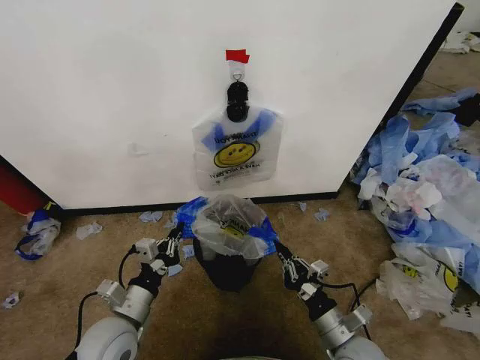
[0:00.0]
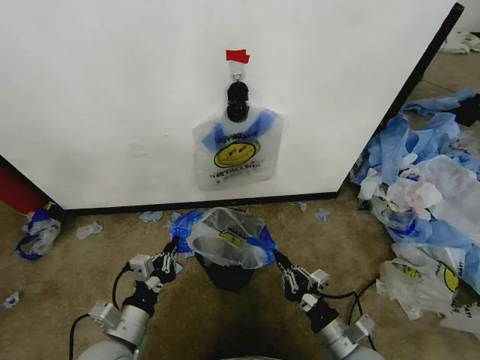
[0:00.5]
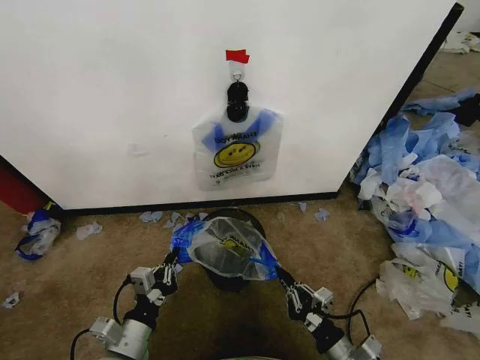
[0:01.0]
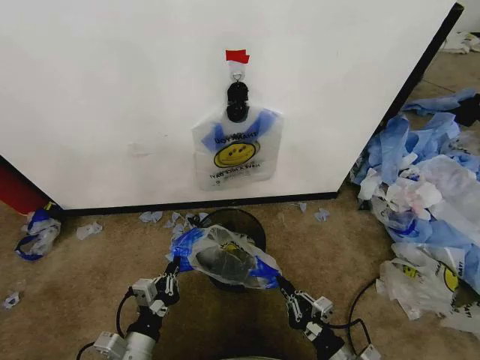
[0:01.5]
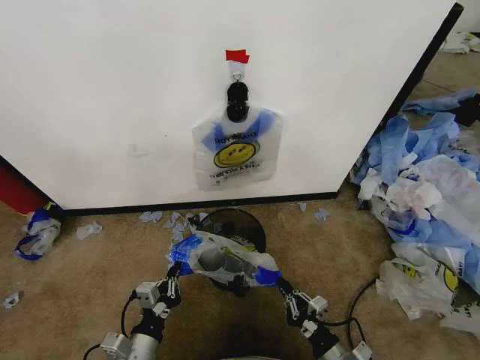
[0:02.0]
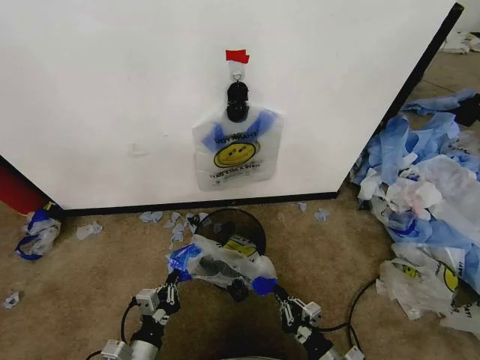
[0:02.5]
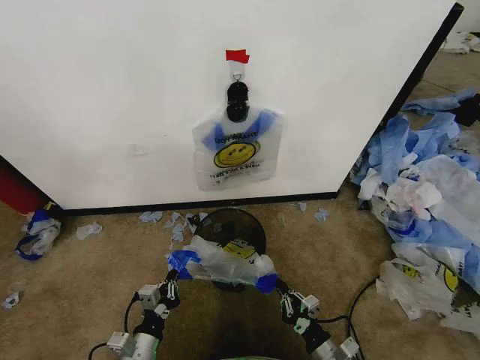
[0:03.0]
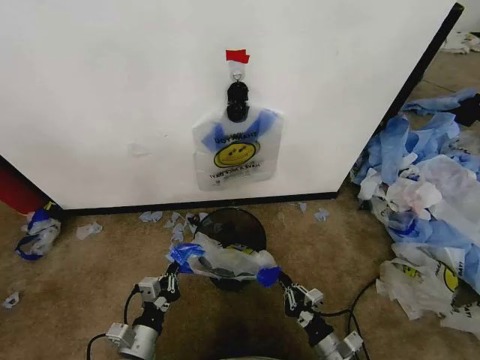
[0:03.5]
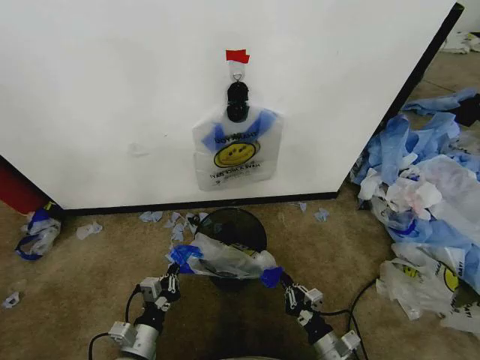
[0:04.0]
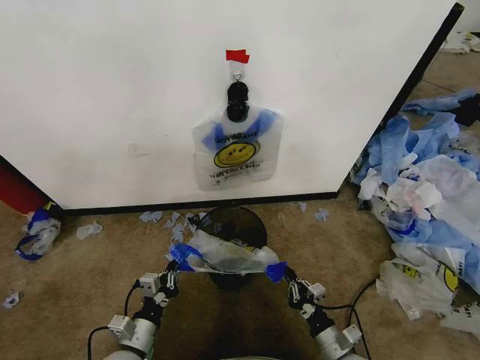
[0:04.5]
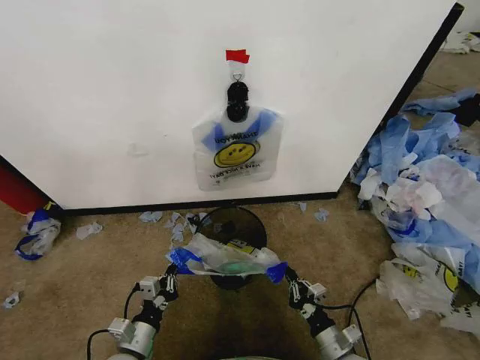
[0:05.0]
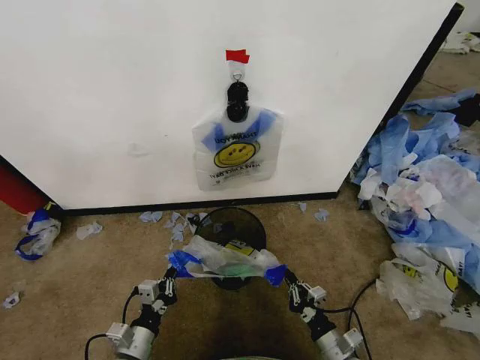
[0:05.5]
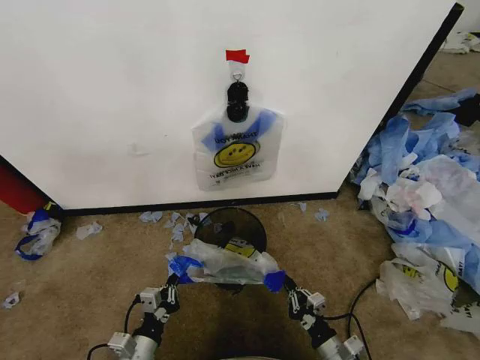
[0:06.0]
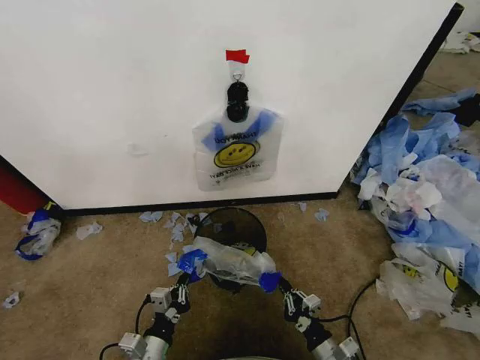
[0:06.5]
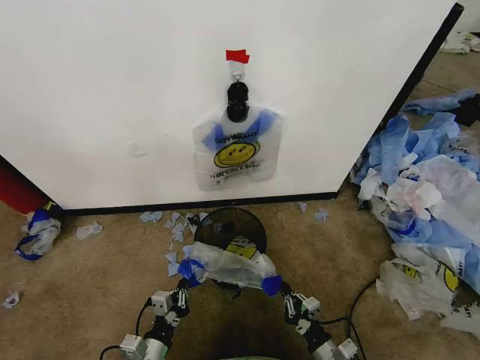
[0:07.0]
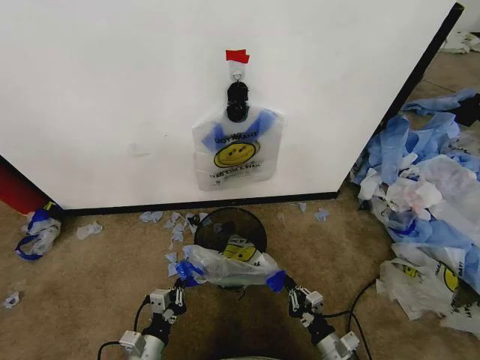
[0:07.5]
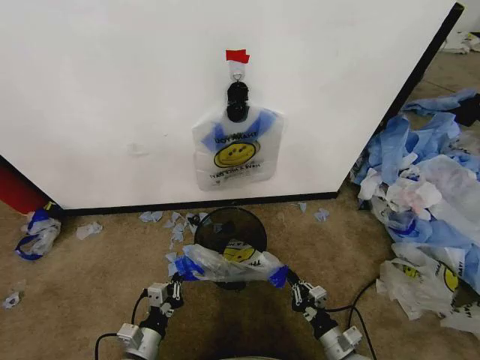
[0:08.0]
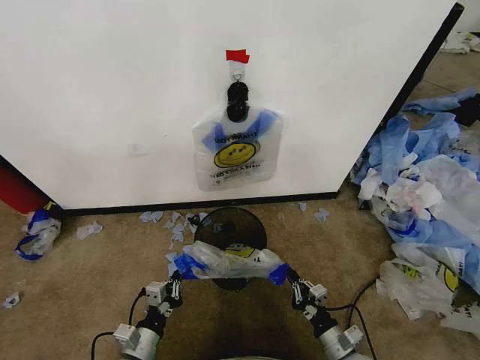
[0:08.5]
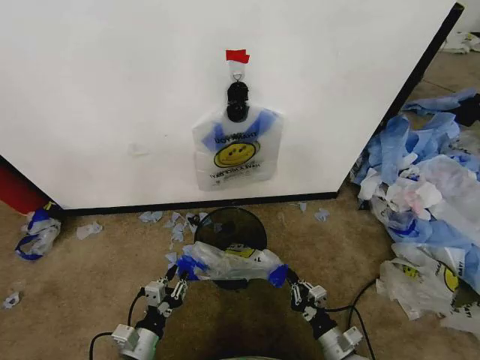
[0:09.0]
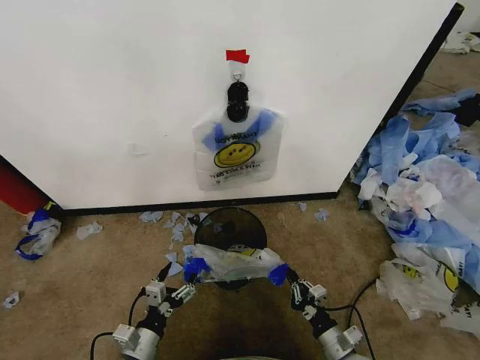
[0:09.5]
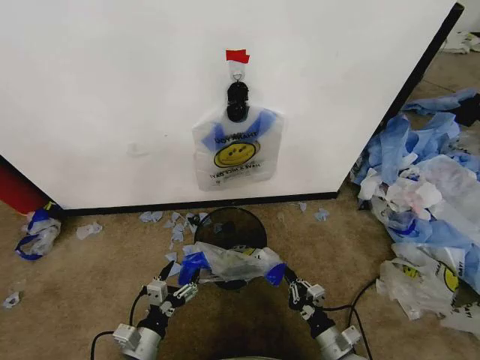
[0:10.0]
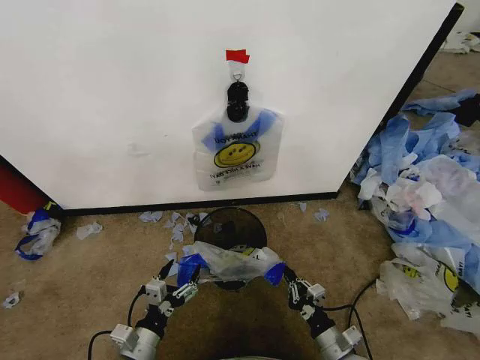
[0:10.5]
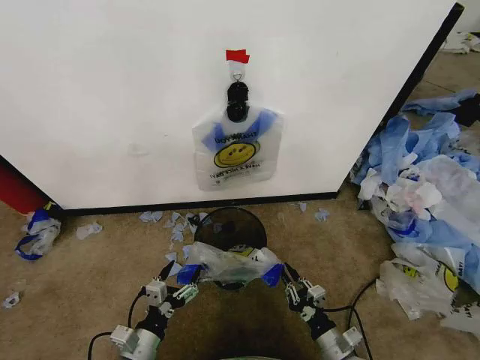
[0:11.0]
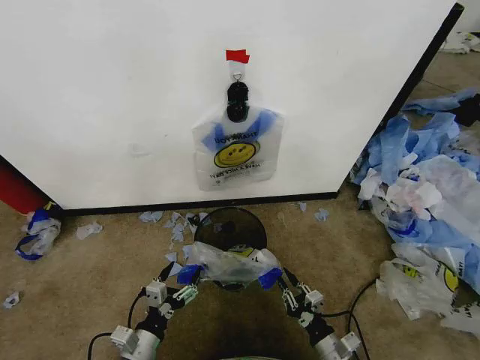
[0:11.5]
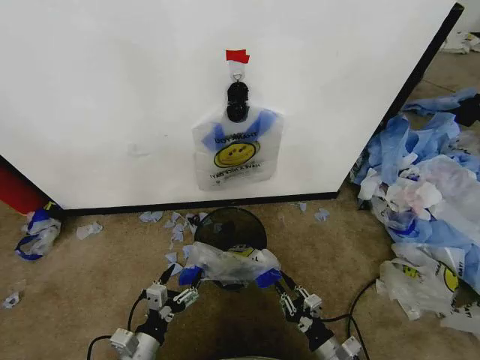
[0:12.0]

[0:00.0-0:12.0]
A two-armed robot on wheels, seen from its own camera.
Task of the whole recording: Pick up the garbage bag from the wall and place it over the trash bin.
0.0 to 2.0 s: The right gripper goes roughly 10 cm downward and backward. Meanwhile the left gripper shifts roughly 10 cm backward and downward.
2.0 to 6.0 s: The grippers move only a little.
6.0 to 8.0 s: The grippers move only a little.
8.0 to 10.0 s: The left gripper opens up.
10.0 to 12.0 s: The grippers stay close to where they were, moving slightly.

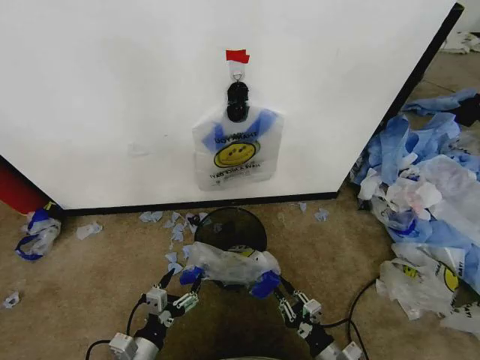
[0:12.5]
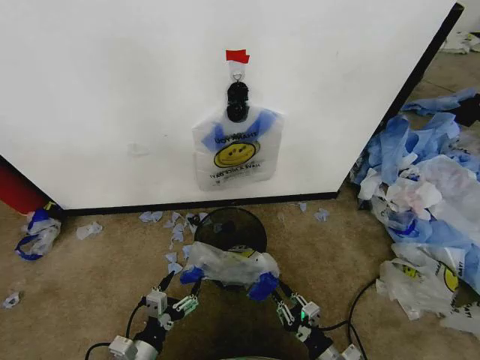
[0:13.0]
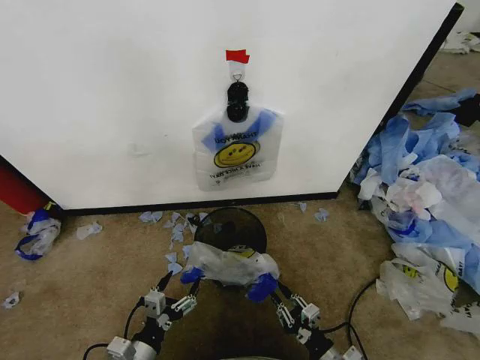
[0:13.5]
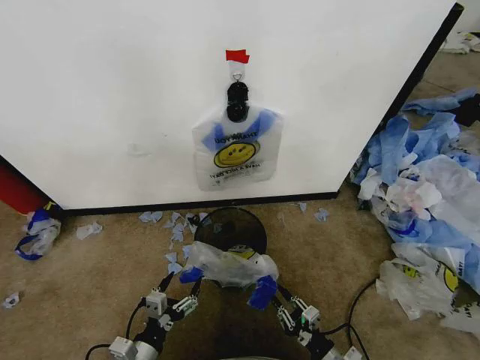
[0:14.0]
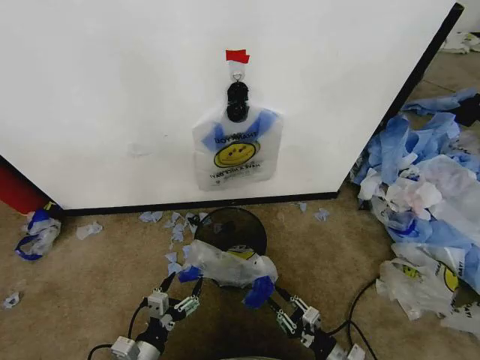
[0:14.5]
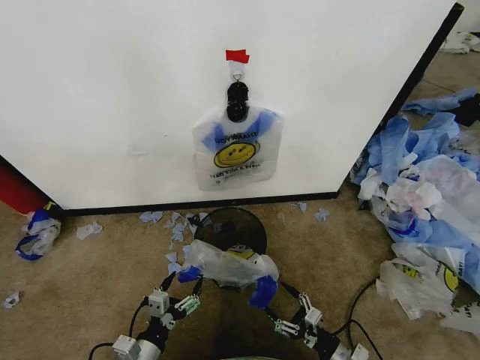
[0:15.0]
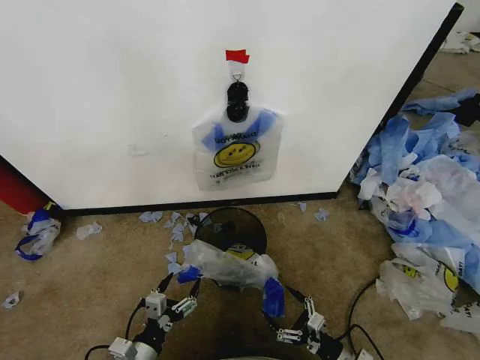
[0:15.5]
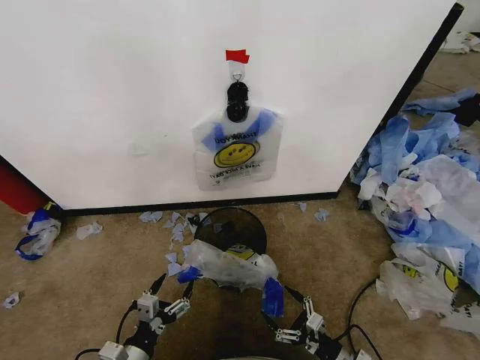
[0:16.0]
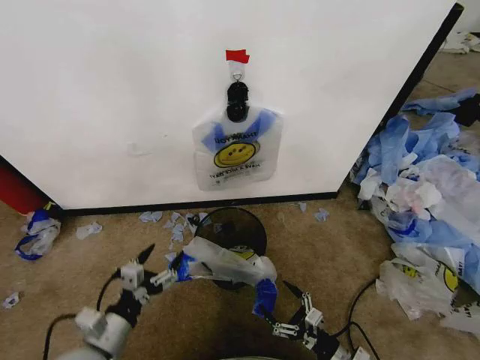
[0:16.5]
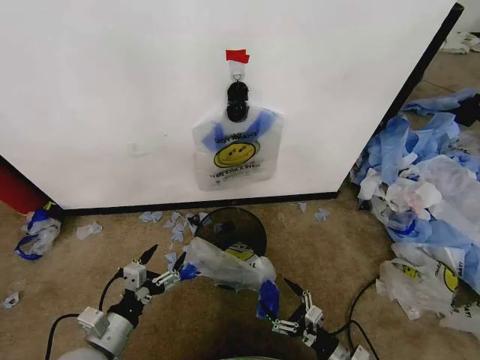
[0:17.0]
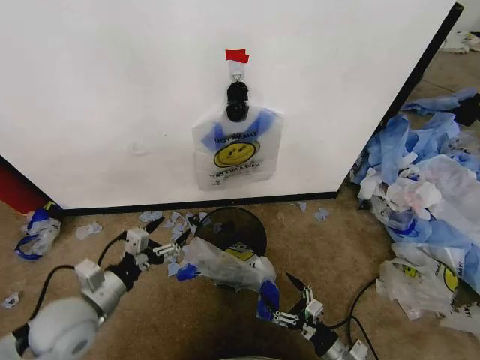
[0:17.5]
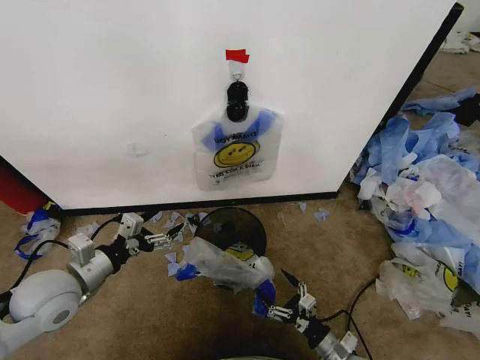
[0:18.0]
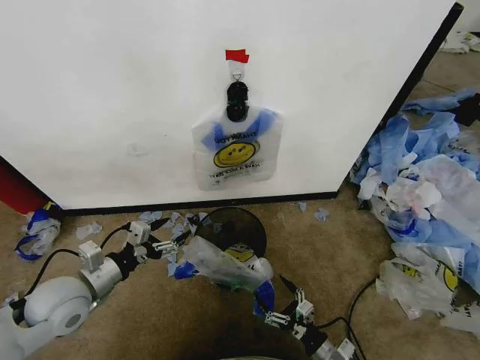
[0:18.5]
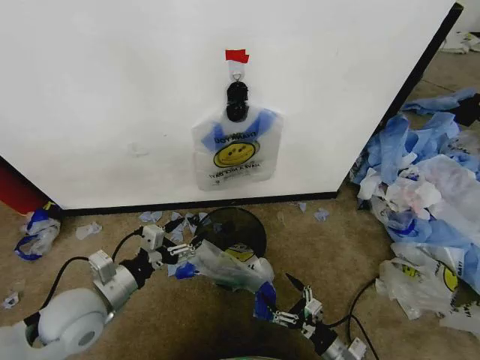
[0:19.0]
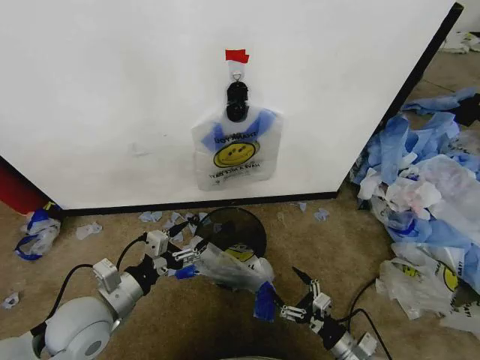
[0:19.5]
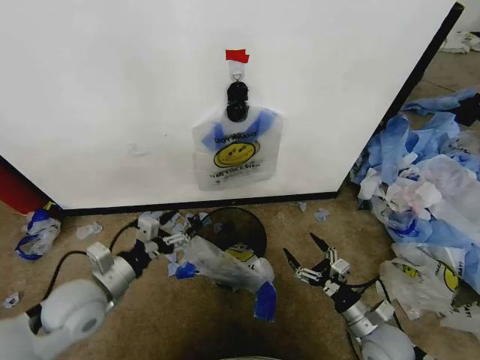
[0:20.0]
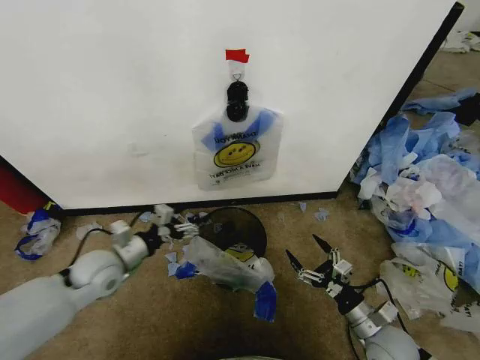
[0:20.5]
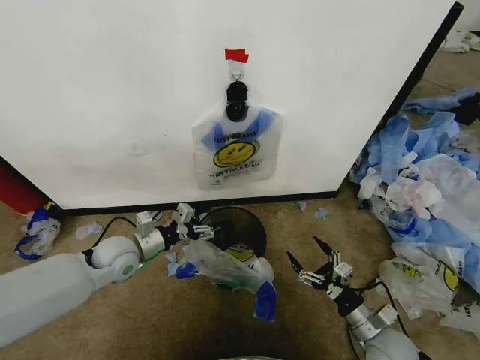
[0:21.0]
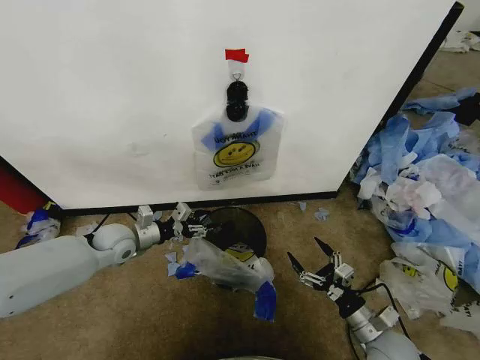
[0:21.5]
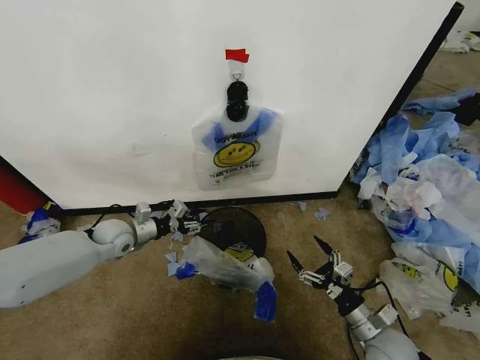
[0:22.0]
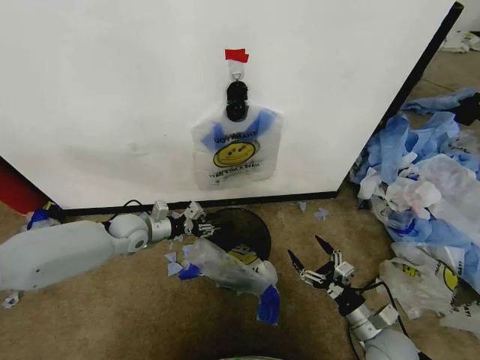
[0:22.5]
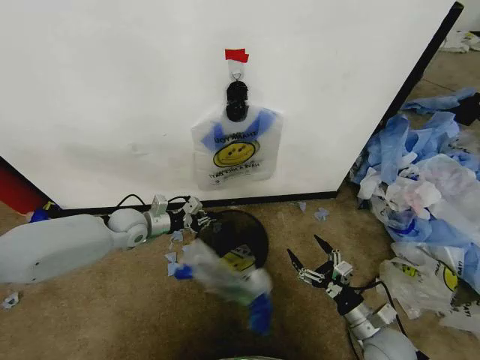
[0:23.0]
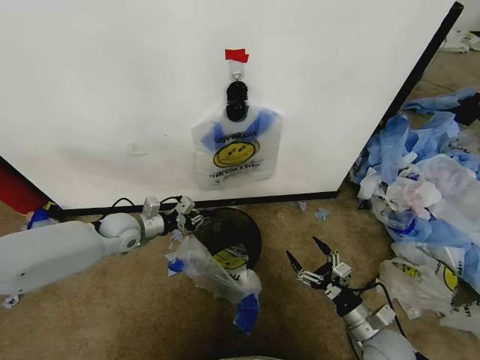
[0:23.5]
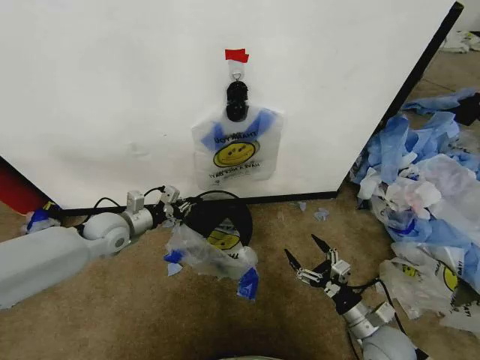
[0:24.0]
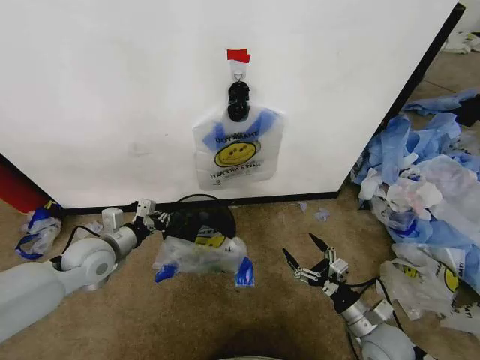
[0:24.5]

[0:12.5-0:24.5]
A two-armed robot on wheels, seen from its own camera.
Task of the whole recording: Pick up the garbage bag from the wall and place it over the trash bin.
12.5 to 14.5 s: The grippers move only a little.
14.5 to 16.5 s: The left gripper is displaced upward by about 5 cm. The right gripper opens up.
16.5 to 18.5 s: The left gripper shifts about 15 cm forward, upward and to the left.
18.5 to 20.5 s: The left gripper shifts roughly 10 cm forward. The right gripper heads upward, to the right and forward, covering roughly 10 cm.
20.5 to 22.5 s: The left gripper shifts roughly 10 cm forward, and closes.
22.5 to 24.5 s: The left gripper is displaced backward by about 10 cm, and closes up.

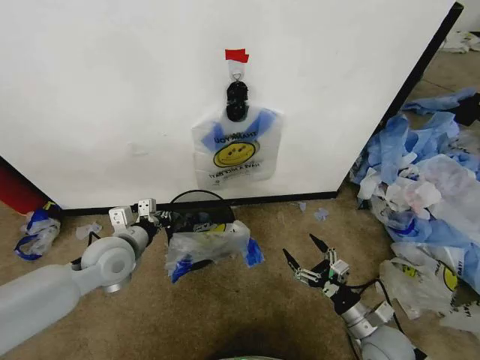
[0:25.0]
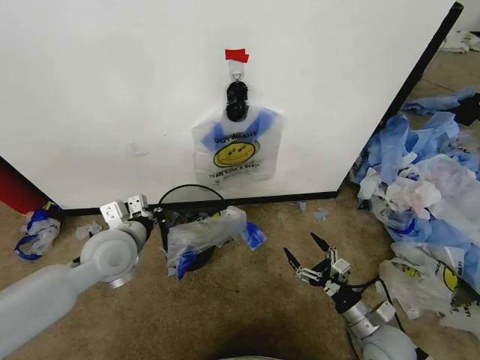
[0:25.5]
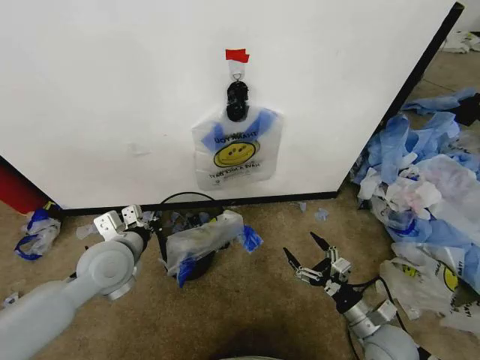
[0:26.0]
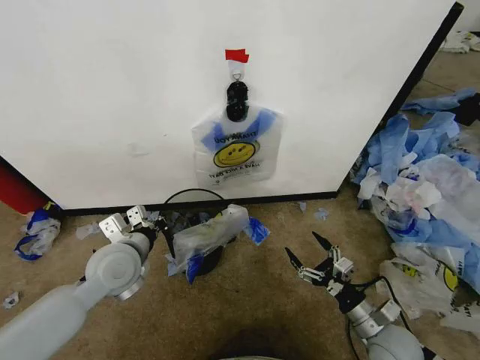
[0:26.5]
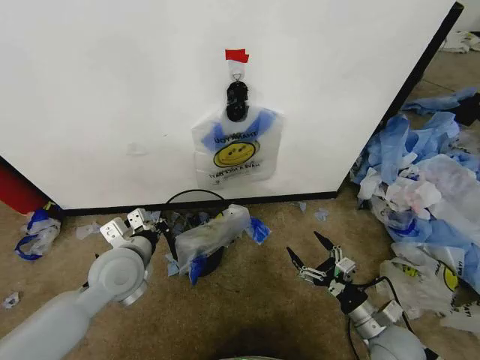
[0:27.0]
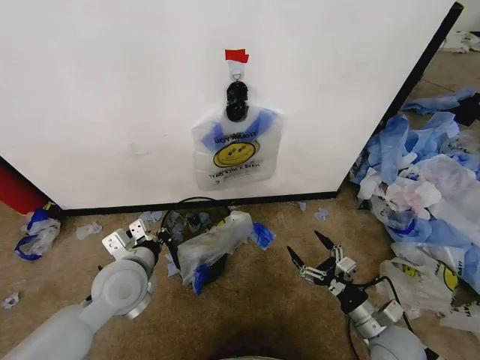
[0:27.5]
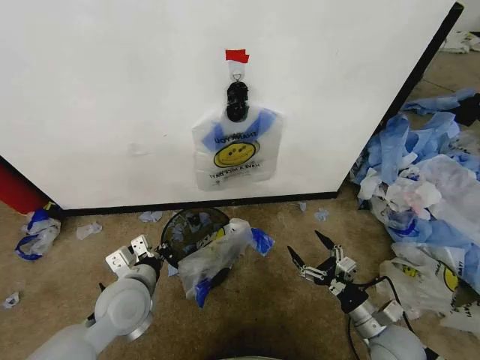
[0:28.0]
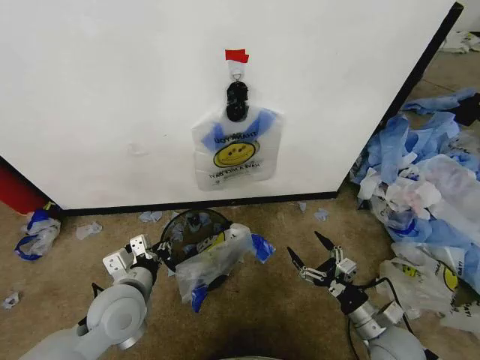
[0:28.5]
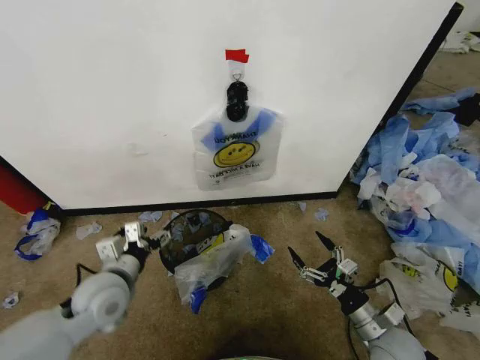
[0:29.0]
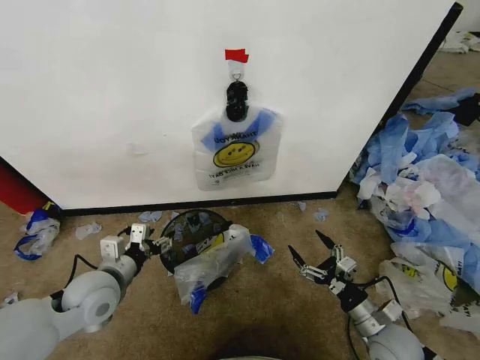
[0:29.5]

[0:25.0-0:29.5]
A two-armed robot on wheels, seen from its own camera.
Task of the whole recording: Pick up the garbage bag from the wall and place it over the trash bin.
27.0 to 29.5 s: The left gripper heads to the left, covering about 5 cm, and opens up.
